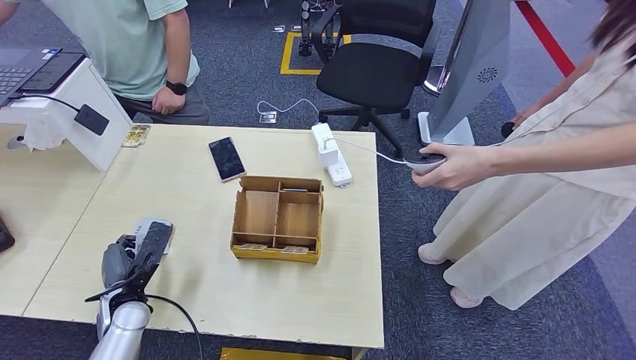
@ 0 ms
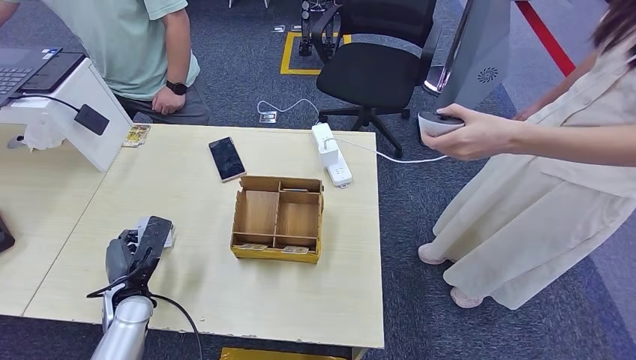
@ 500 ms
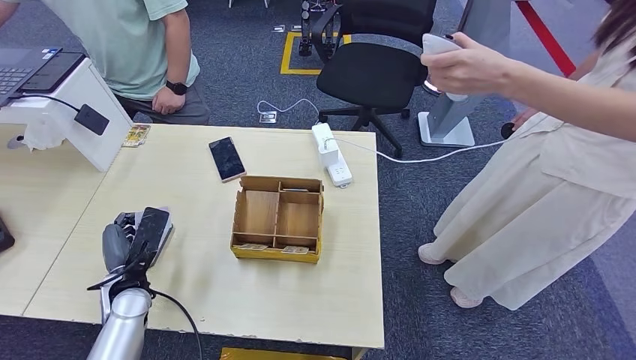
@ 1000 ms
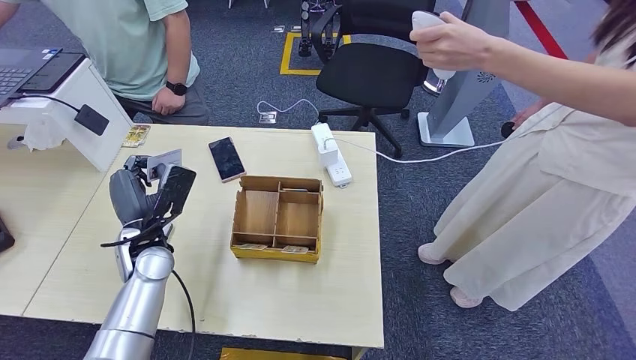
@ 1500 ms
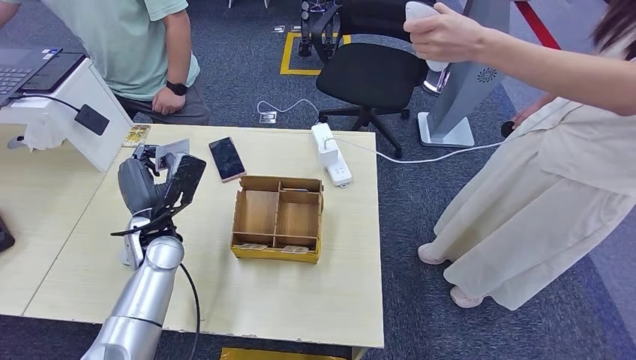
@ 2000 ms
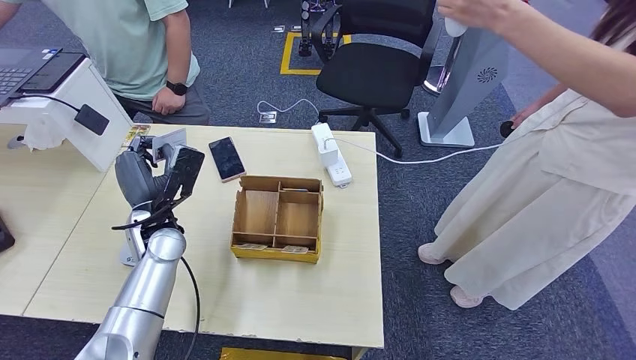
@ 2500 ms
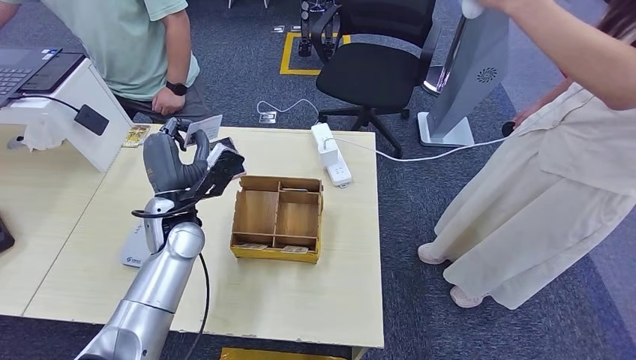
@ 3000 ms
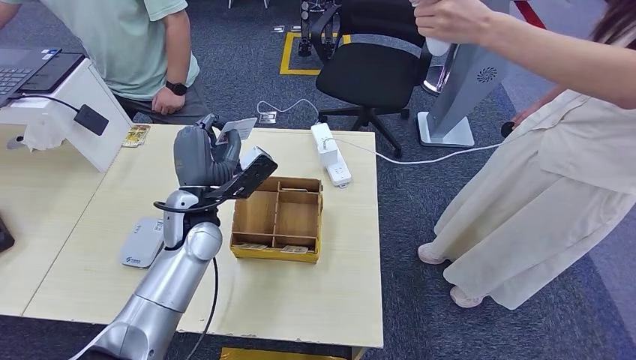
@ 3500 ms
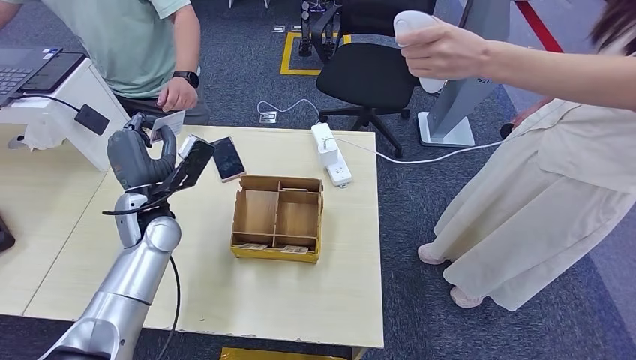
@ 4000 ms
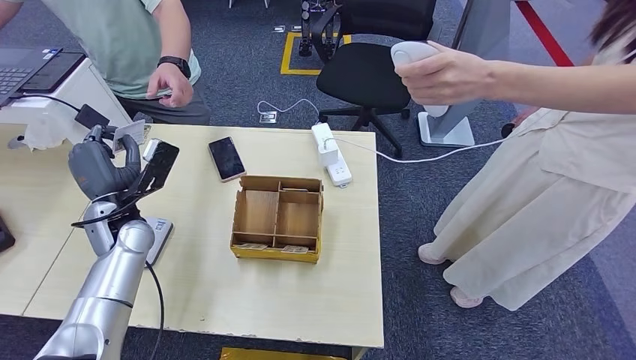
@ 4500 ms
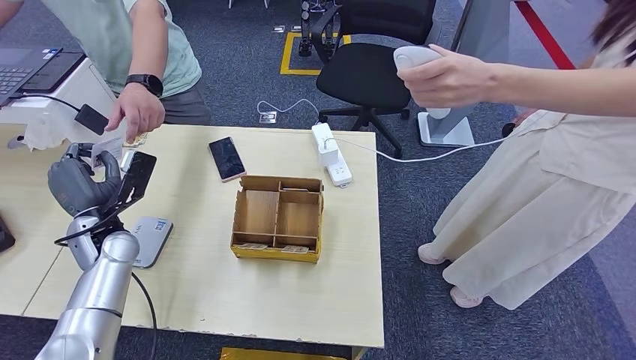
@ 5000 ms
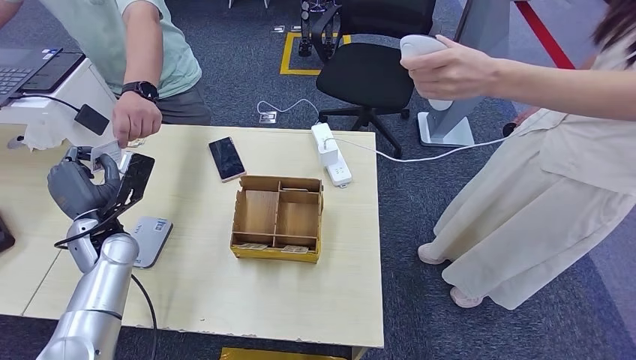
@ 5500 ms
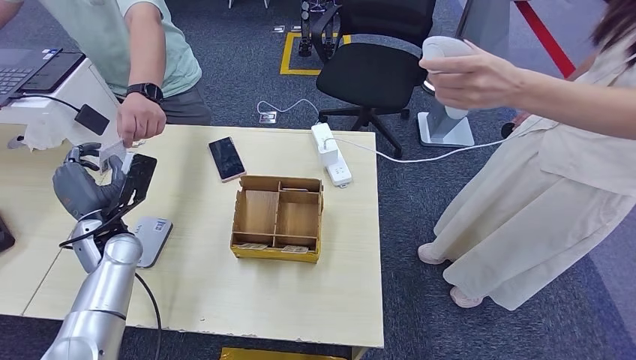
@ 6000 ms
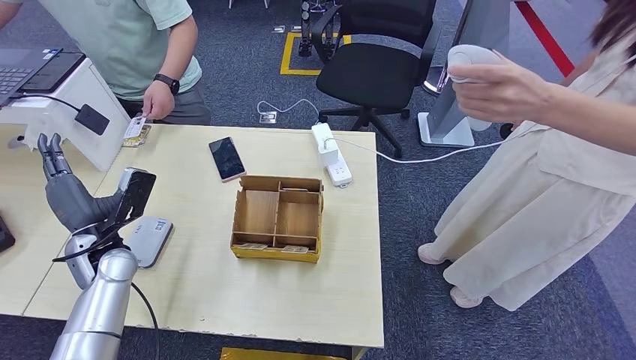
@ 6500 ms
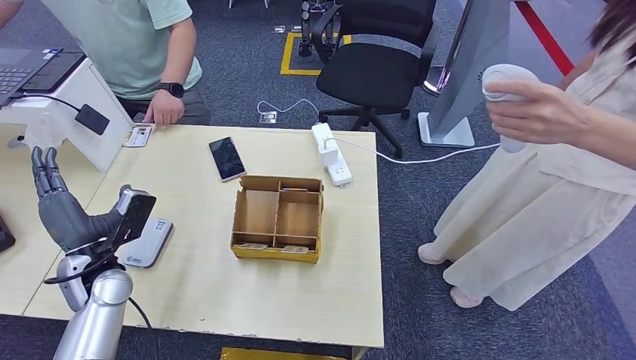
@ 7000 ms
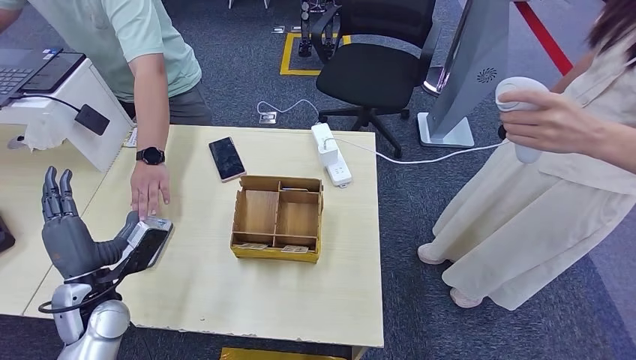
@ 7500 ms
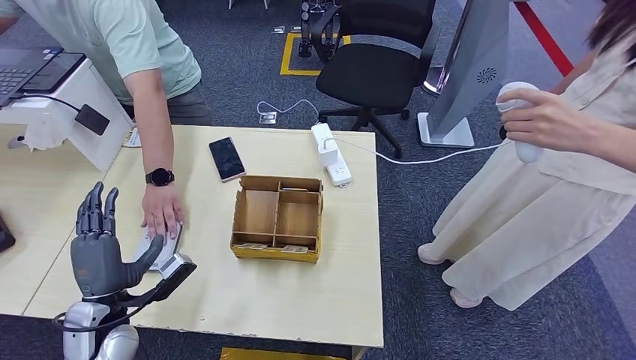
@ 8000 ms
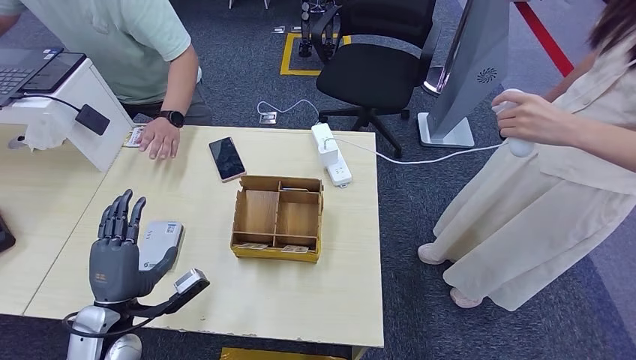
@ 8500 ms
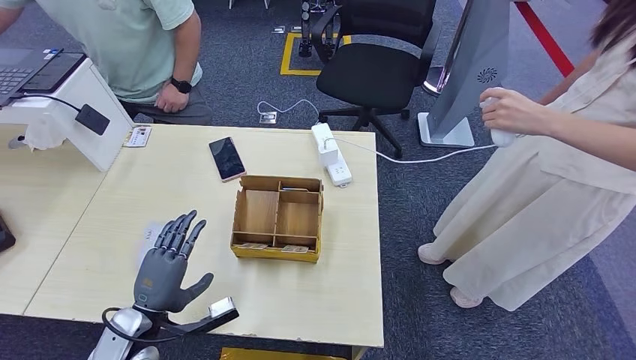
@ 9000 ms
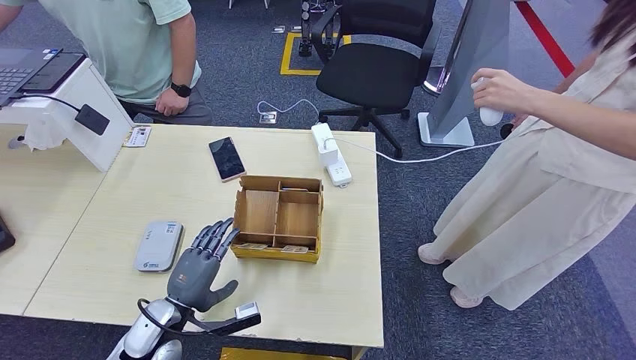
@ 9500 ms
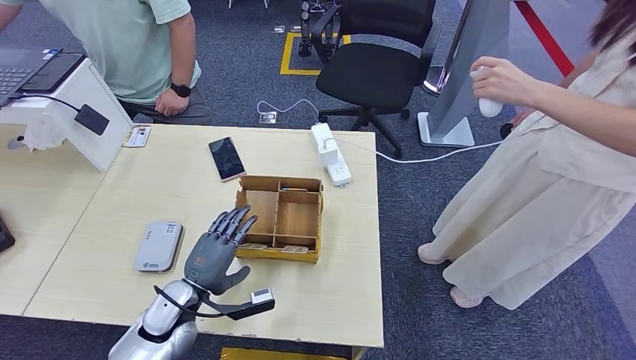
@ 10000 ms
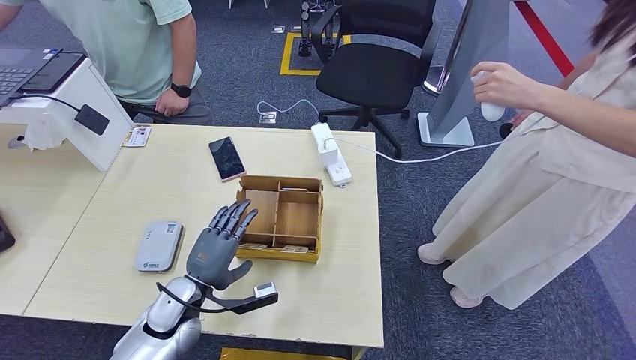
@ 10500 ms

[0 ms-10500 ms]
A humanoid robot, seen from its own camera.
Step, 1500 ms to 6500 ms: Hand the ID card to the person.
0 ms to 2000 ms: The left hand travels upward, forward and to the right by approximately 15 cm.
2000 ms to 4000 ms: The left hand moves about 10 cm to the right and comes back.
6500 ms to 8500 ms: The left hand travels backward by approximately 10 cm.
8500 ms to 10500 ms: The left hand goes some 10 cm to the right and forward.

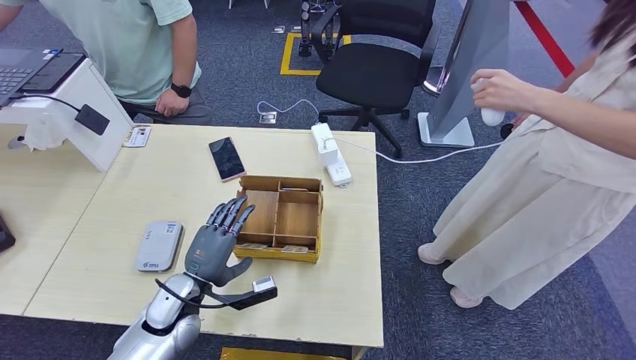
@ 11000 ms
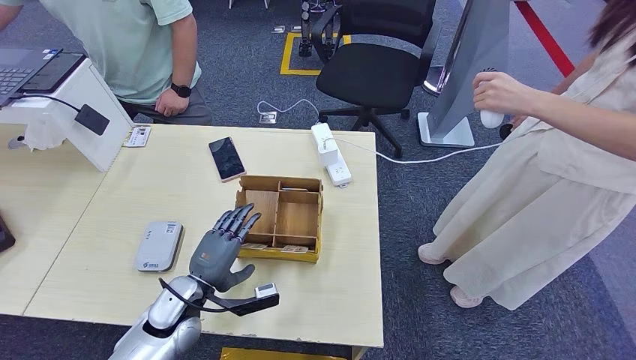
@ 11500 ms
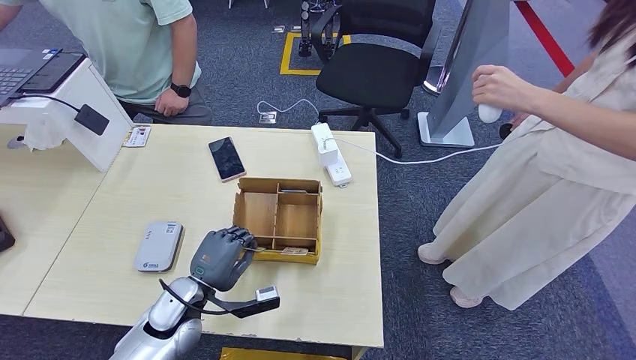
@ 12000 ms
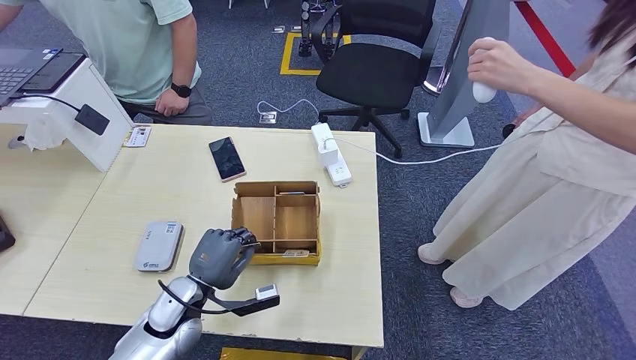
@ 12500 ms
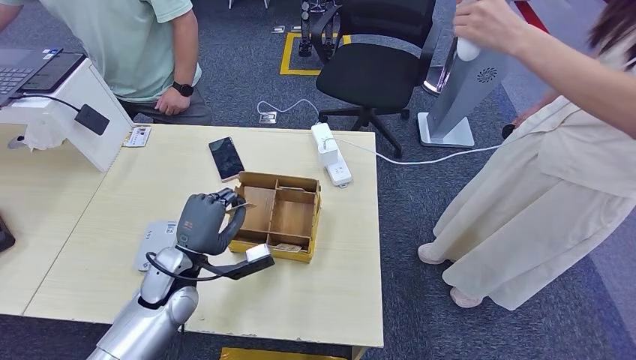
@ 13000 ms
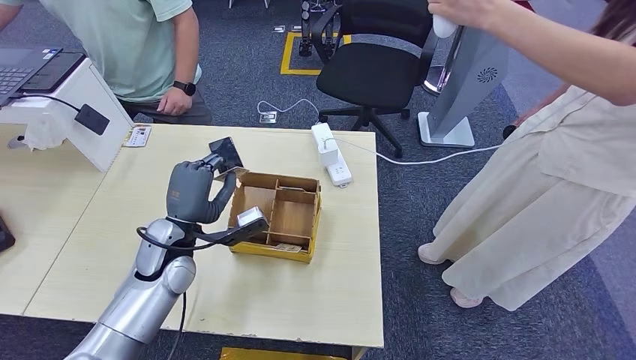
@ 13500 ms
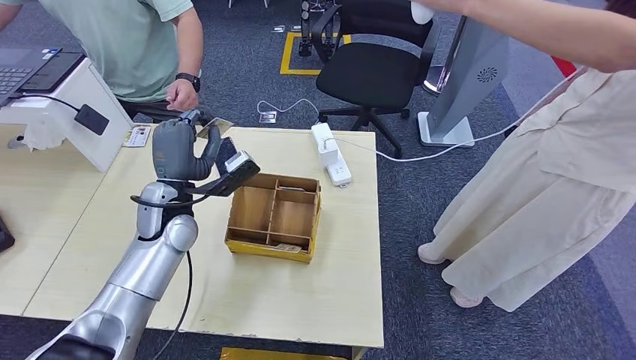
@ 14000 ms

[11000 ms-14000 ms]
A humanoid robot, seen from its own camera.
Step, 13000 ms to 14000 ms: Hand the room key to the person.
11000 ms to 12500 ms: The hands make only small movements.
12500 ms to 14000 ms: The left hand goes some 20 cm upward and forward.
